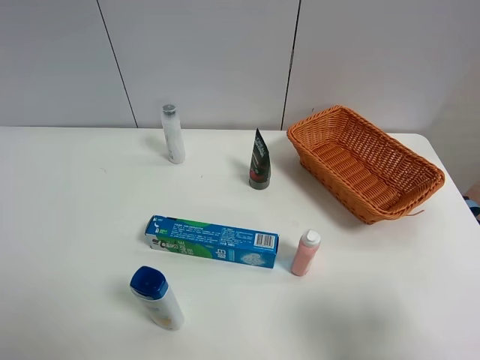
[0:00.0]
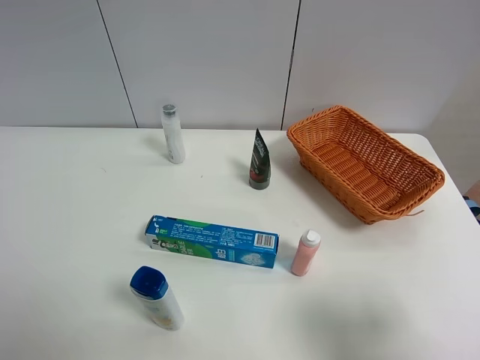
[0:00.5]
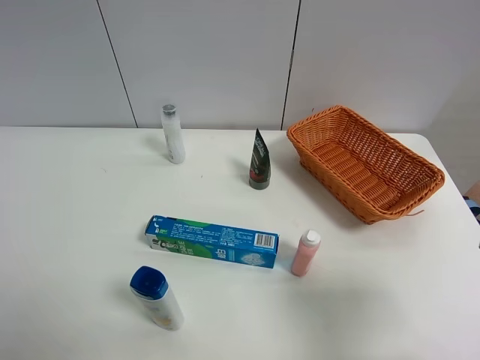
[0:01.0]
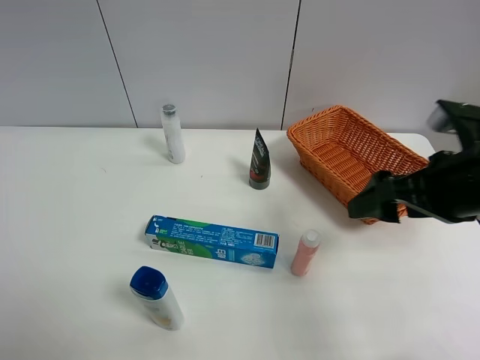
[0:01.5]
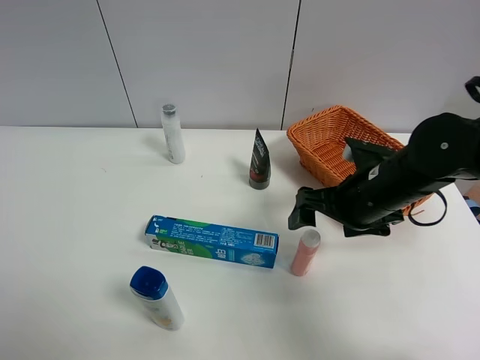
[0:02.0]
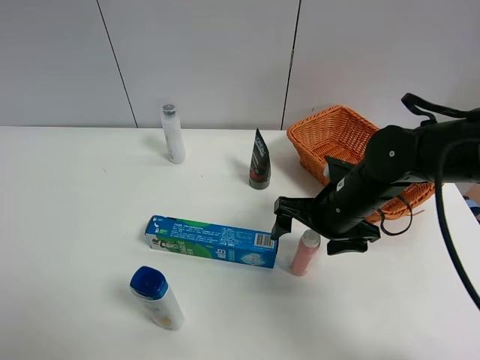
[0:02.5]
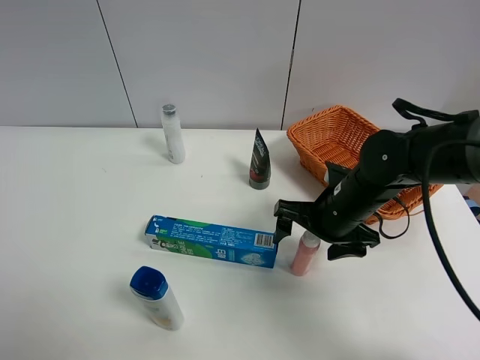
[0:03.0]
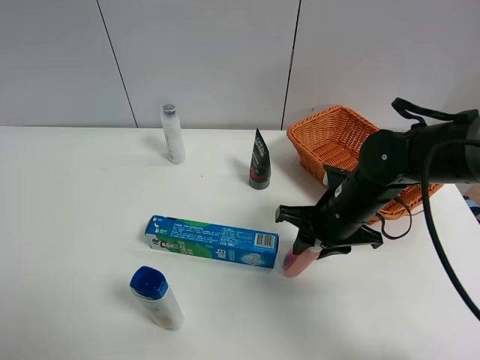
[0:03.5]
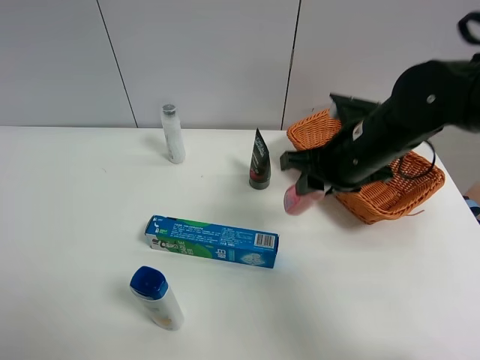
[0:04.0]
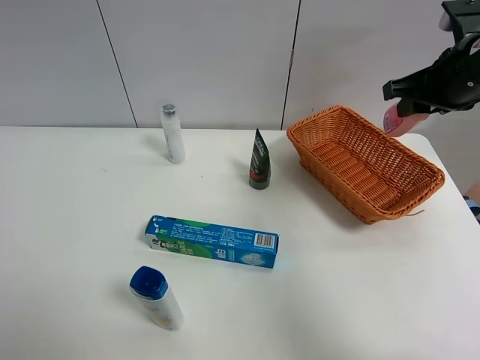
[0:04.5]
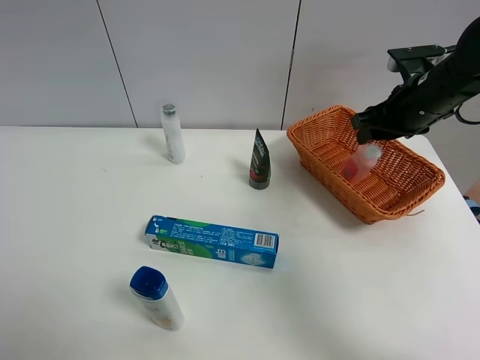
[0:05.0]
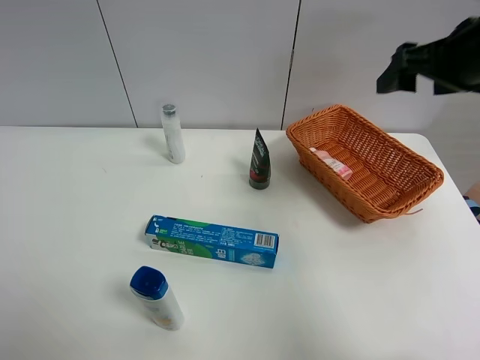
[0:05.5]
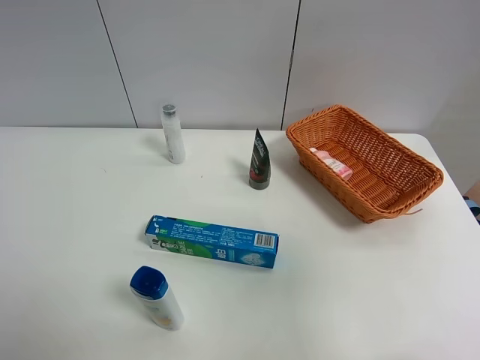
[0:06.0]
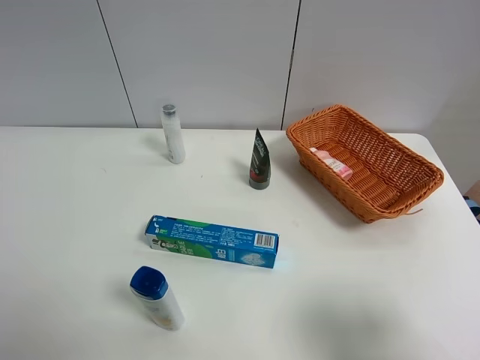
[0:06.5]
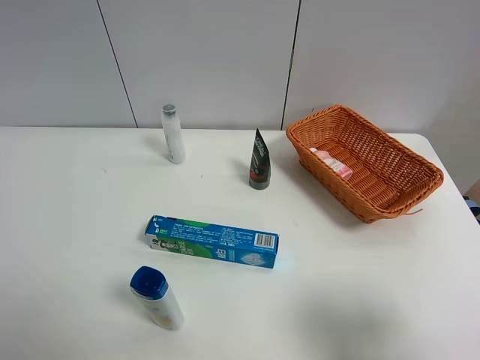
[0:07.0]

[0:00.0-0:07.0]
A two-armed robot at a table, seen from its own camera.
Task of the whole recording: Place the object closest to the toothpaste in the basket.
Step, 0:00.0 to 0:03.5: Grasp the pink laundry detergent with right gripper.
Step, 0:04.0 to 0:05.0: Place the pink laundry detergent in the basket with right gripper.
0:00.0 to 0:02.0: The right gripper shifts some 25 cm forward and to the left.
0:02.0 to 0:03.5: The right gripper closes up.
0:03.5 to 0:05.0: The right gripper moves to the right, forward and upward, roughly 20 cm, and opens its fingers.
0:05.0 to 0:07.0: The right gripper travels backward by roughly 35 cm.
